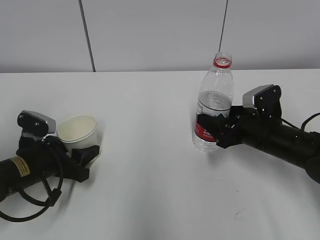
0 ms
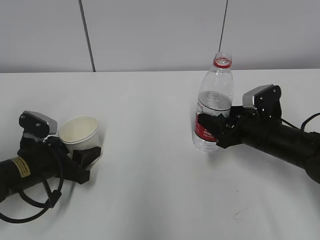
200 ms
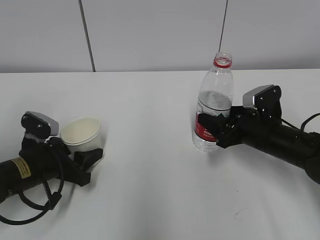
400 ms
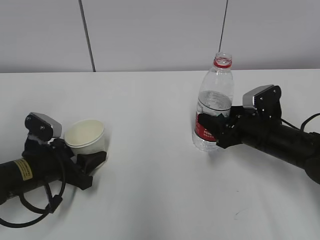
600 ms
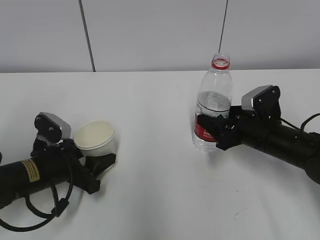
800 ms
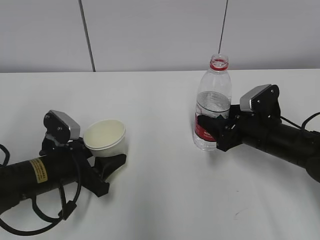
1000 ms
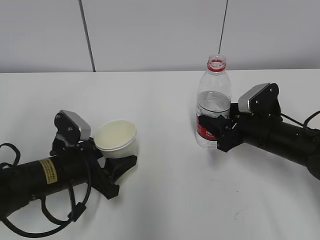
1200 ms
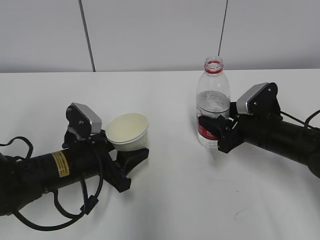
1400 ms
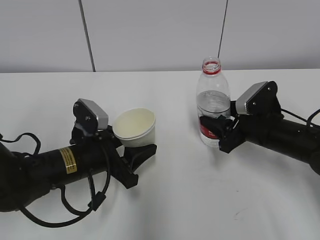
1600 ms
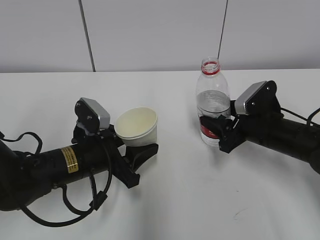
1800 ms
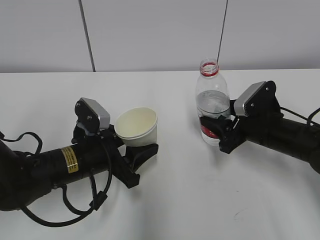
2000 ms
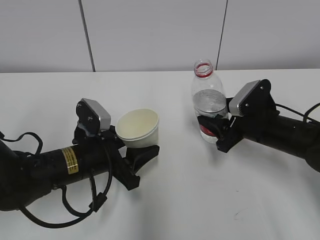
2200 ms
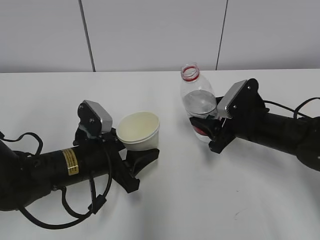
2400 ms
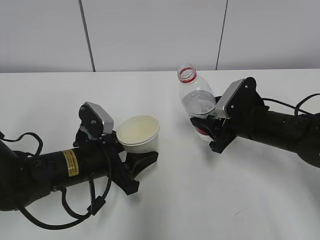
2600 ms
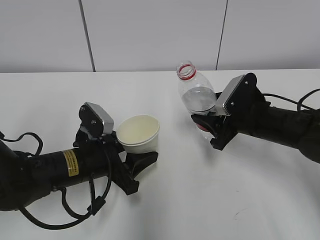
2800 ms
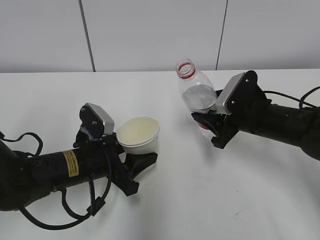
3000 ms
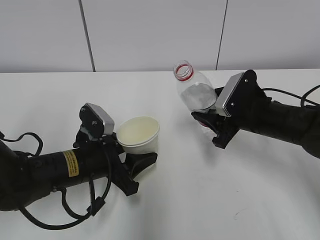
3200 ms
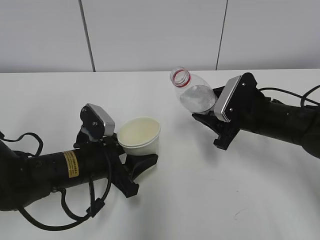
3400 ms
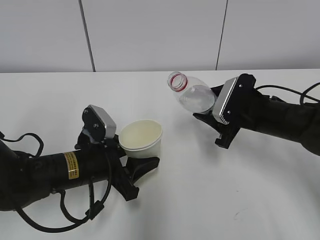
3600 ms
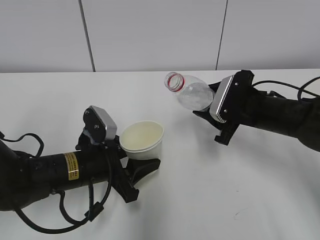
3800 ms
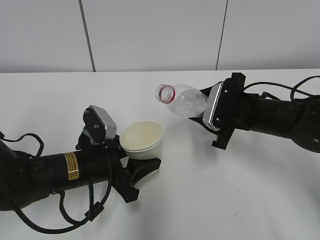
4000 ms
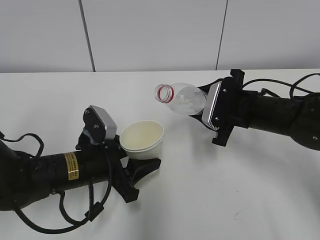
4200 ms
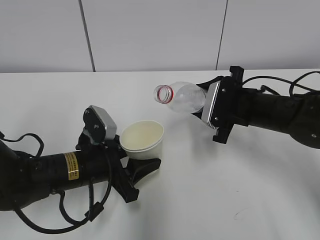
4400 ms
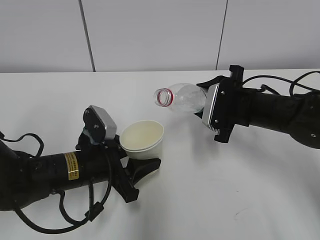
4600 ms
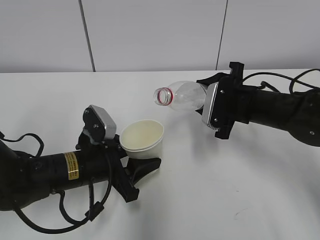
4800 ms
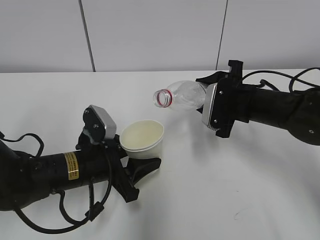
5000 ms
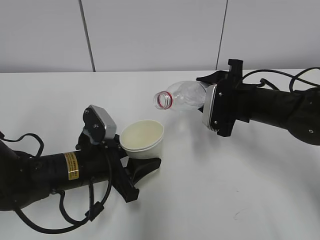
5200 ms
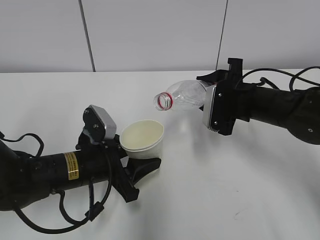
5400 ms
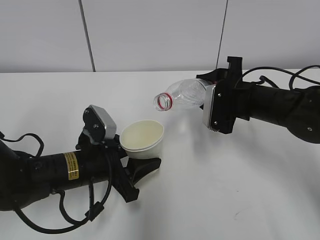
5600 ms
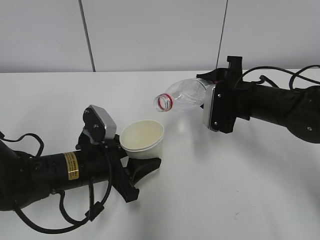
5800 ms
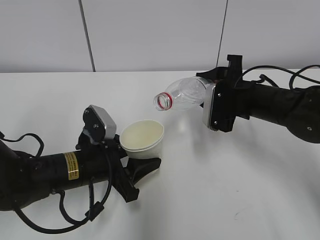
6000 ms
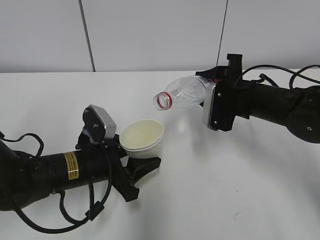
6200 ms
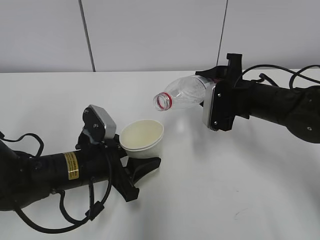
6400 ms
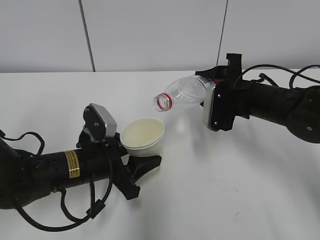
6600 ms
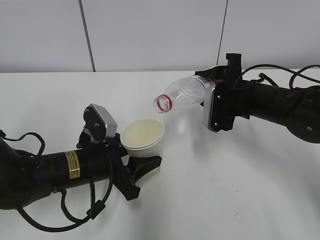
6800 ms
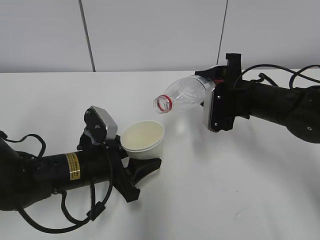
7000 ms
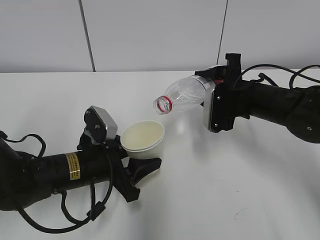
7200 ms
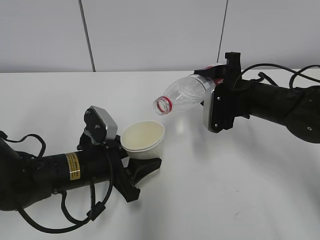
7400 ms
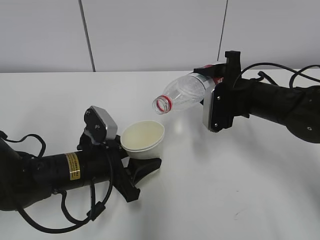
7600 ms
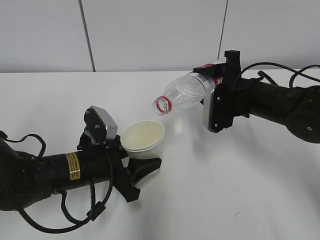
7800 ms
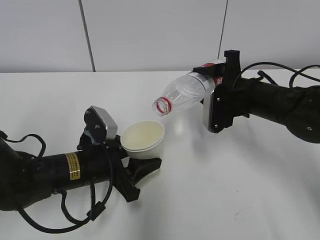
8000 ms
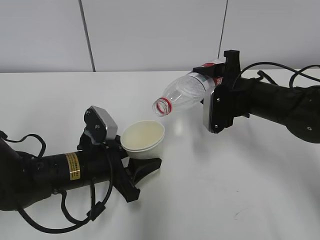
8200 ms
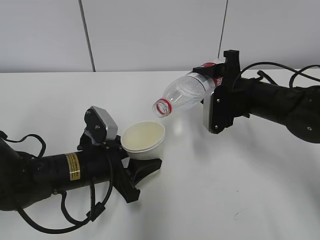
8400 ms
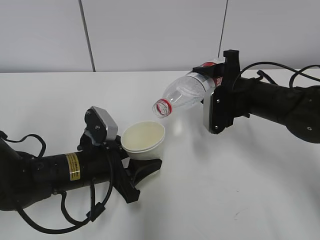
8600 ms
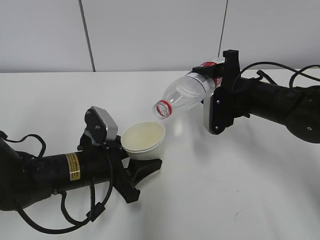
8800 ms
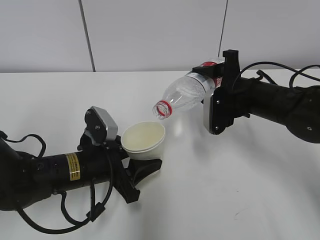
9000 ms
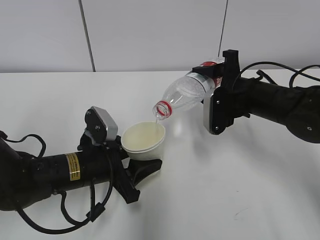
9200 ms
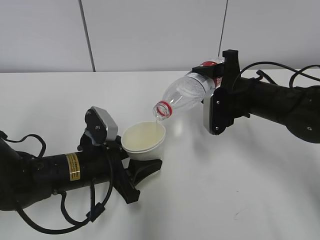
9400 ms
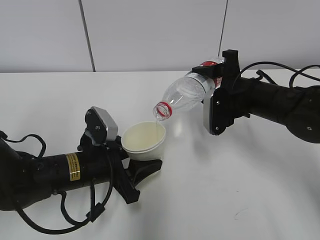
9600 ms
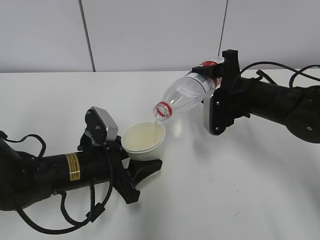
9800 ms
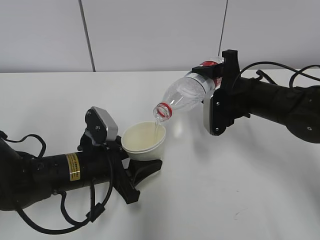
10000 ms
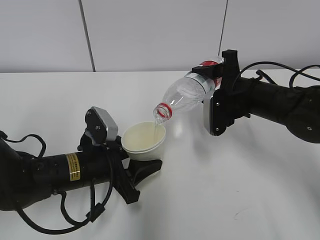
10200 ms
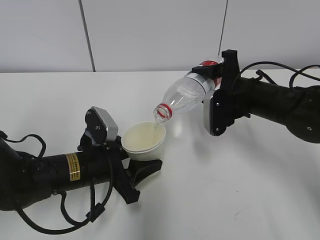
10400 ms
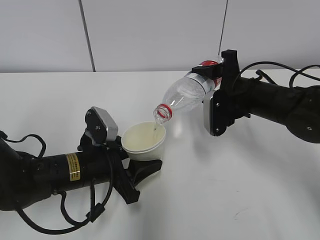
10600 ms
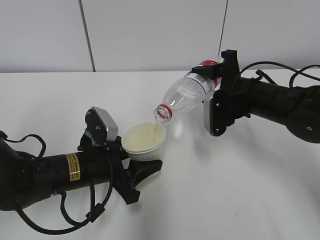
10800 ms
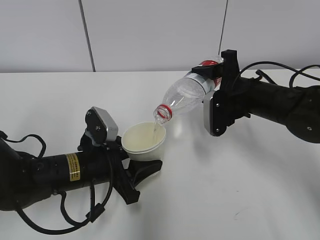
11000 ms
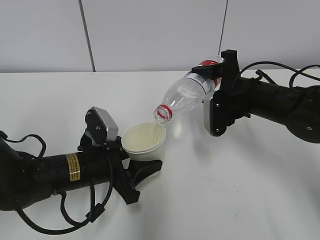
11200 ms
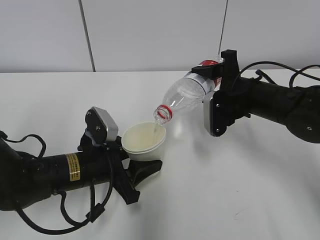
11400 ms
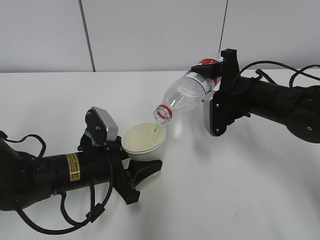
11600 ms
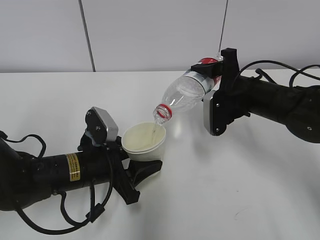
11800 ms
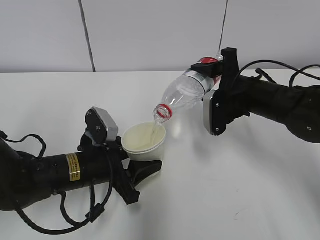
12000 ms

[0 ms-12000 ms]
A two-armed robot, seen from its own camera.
Step, 0 ms to 5200 ms: Lift the paper cup with the left hand.
Step, 5400 ms to 9600 ms: Fill water with the left hand.
Step, 5400 ms to 9600 ms: Pour water with the right hand.
0 ms to 1600 ms: The left gripper shifts about 10 cm to the right.
1600 ms to 3000 ms: The grippers stay close to where they were, moving slightly.
4400 ms to 6000 ms: The grippers move only a little.
6000 ms to 9000 ms: There are only small adjustments of the grippers.
9000 ms to 10400 ms: Neither gripper changes place.
10400 ms to 12000 ms: The two grippers keep their place.

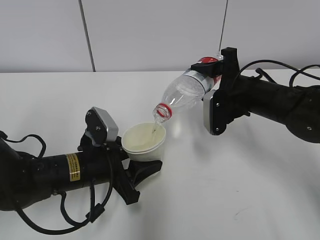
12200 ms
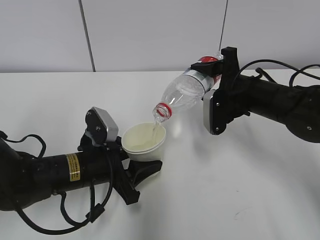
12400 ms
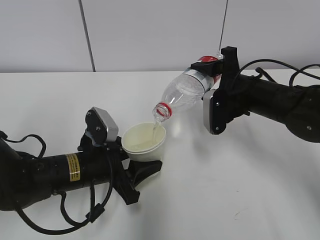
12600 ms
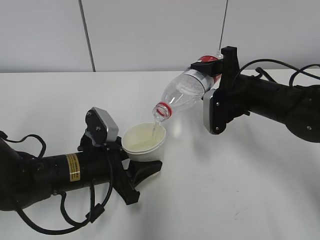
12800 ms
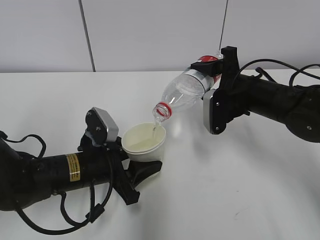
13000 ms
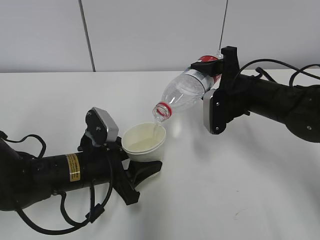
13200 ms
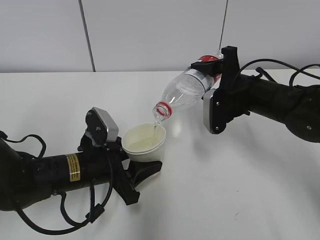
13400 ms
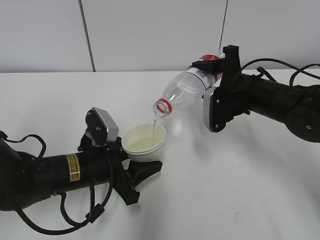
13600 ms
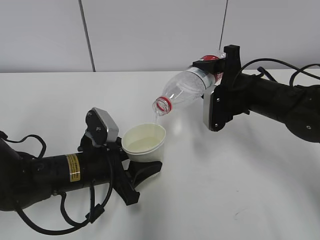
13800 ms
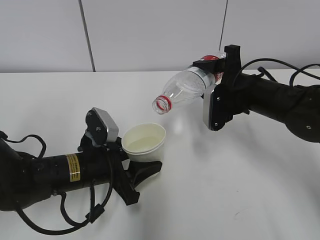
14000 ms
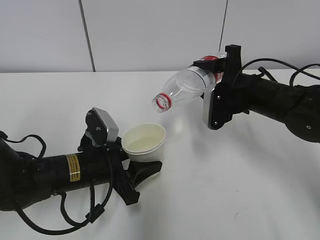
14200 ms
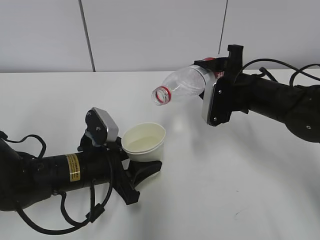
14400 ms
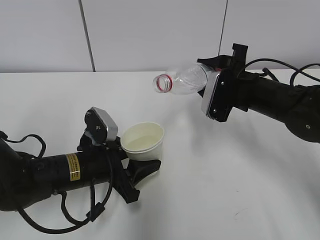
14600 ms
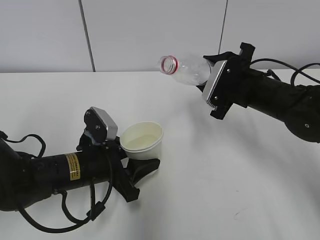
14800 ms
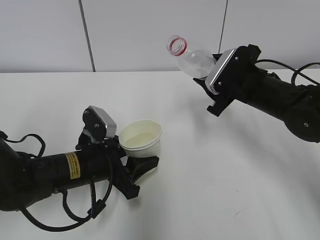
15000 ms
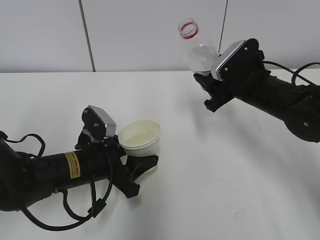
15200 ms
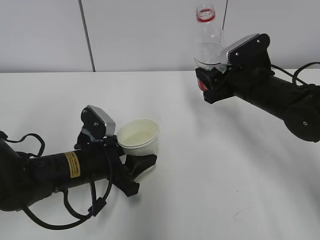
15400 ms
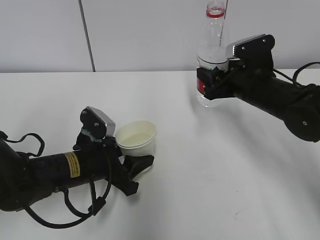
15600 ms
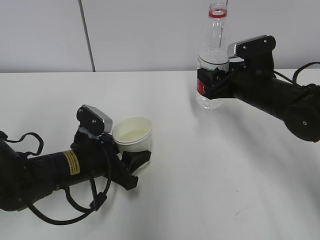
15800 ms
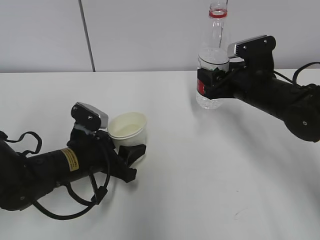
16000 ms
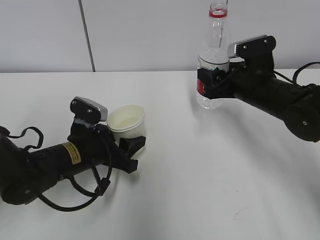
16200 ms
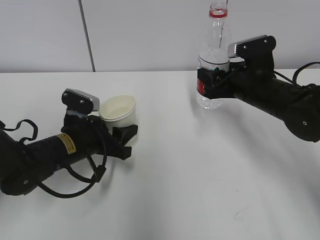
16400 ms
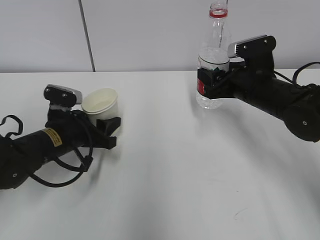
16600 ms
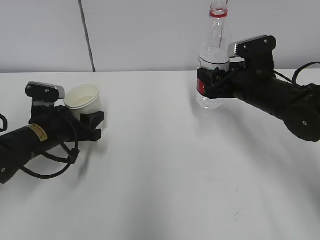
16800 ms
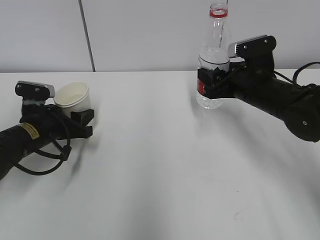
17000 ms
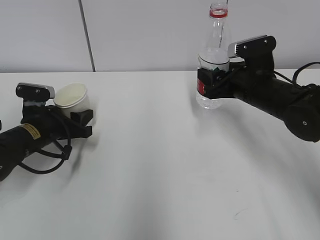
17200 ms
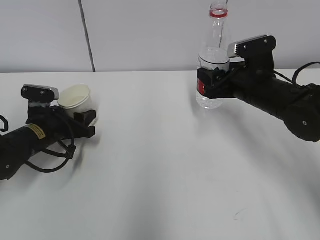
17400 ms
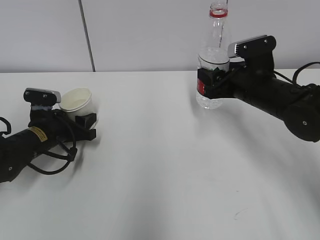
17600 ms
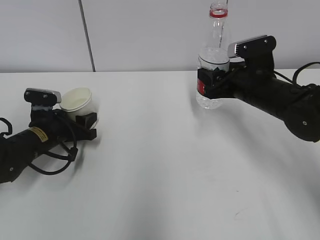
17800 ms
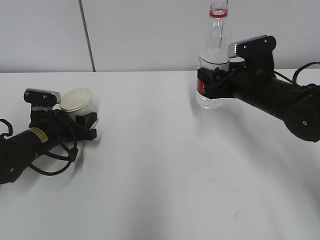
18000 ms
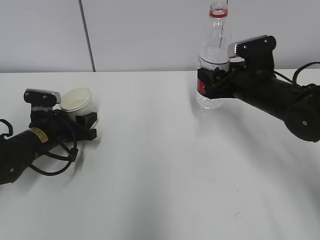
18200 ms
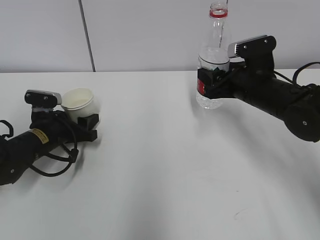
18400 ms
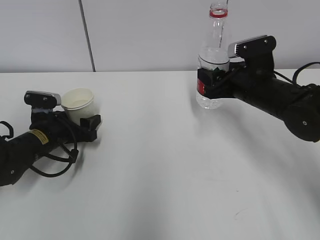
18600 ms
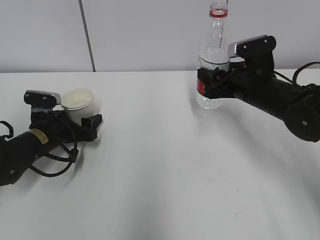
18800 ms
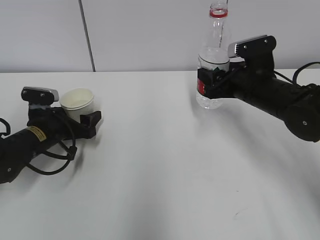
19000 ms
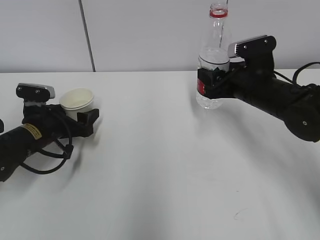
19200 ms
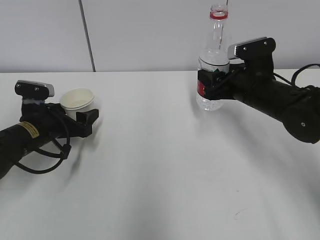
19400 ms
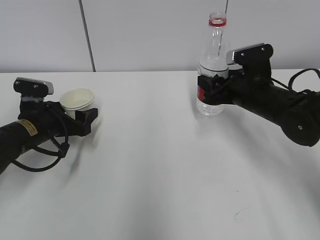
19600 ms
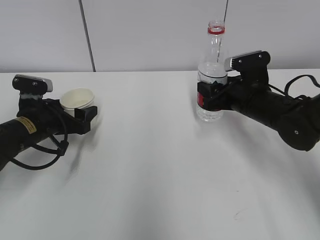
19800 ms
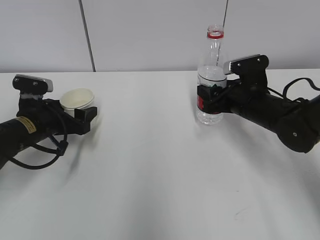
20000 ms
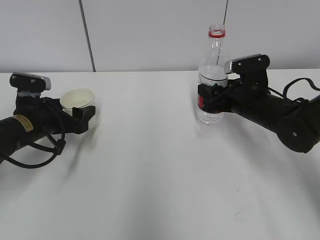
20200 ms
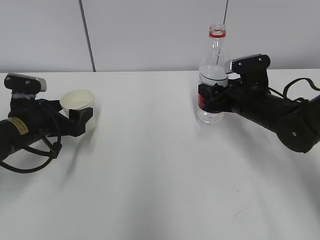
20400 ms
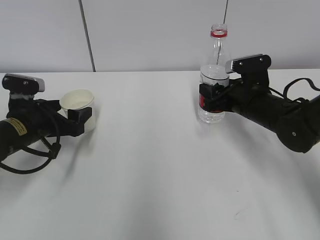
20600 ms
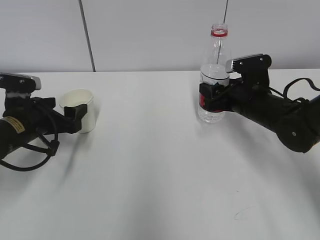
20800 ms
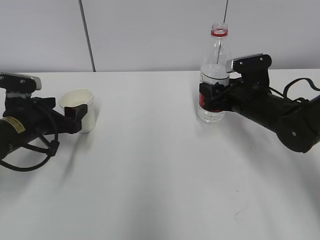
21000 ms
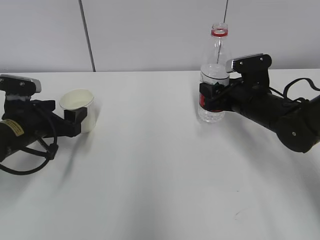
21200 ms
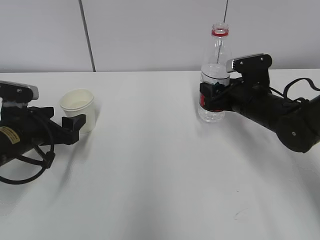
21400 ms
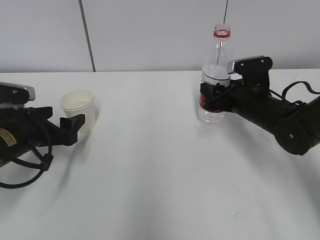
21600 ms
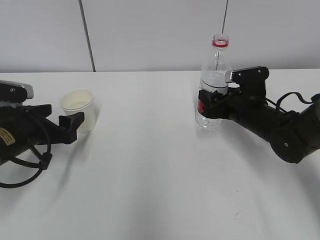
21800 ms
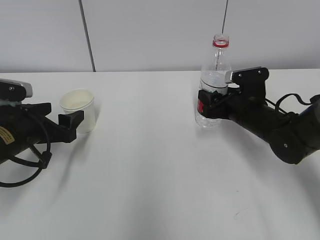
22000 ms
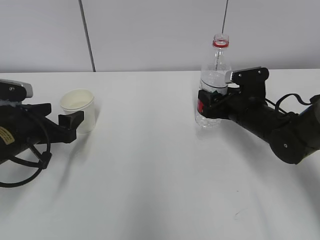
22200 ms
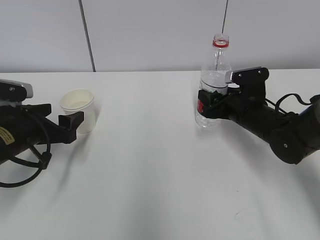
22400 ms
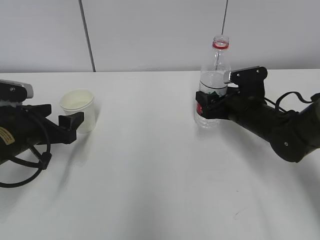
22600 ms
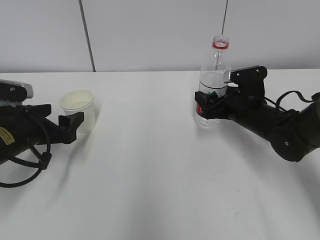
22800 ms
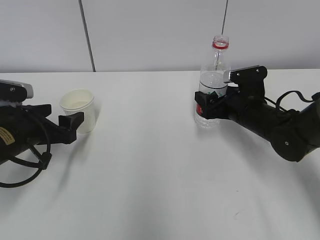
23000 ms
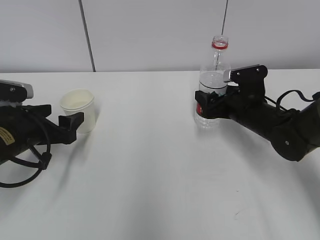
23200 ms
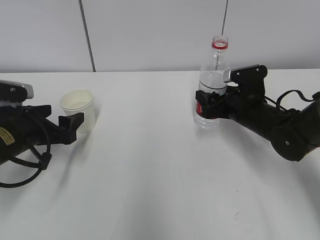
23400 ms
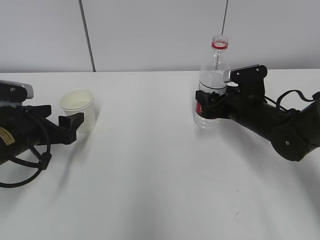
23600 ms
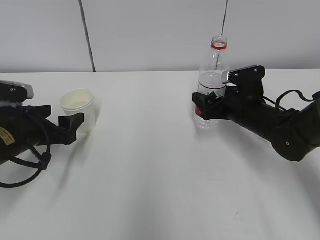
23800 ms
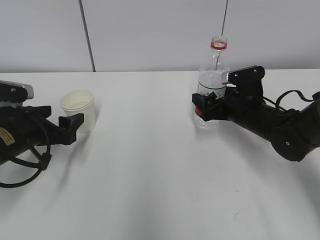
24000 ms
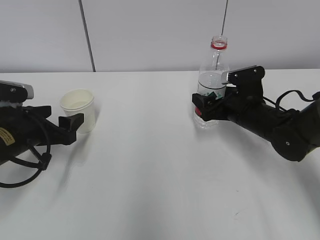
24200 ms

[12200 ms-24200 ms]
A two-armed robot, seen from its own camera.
12200 ms to 13800 ms: Both grippers stay put.
15200 ms to 16600 ms: The left gripper moves forward, some 5 cm.
16600 ms to 18200 ms: The left gripper shifts roughly 5 cm to the left.
18200 ms to 19800 ms: The left gripper opens up.
19800 ms to 21200 ms: The grippers stay close to where they were, moving slightly.
21200 ms to 22600 ms: The right gripper opens.
22600 ms to 24200 ms: The right gripper opens up.
